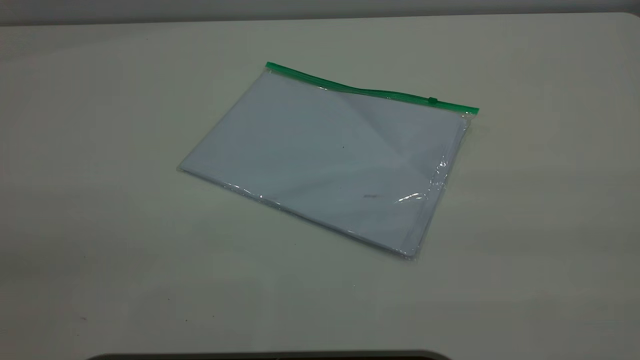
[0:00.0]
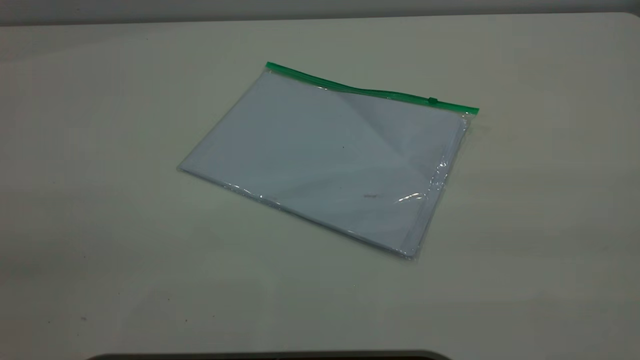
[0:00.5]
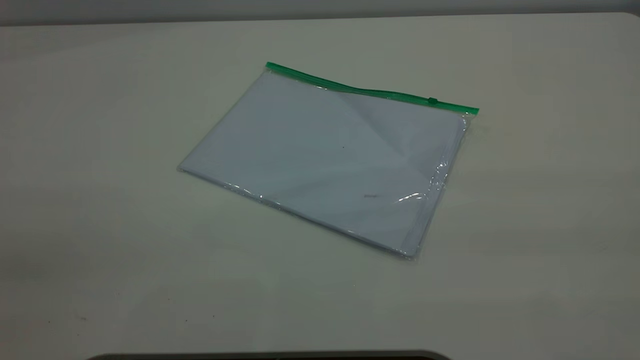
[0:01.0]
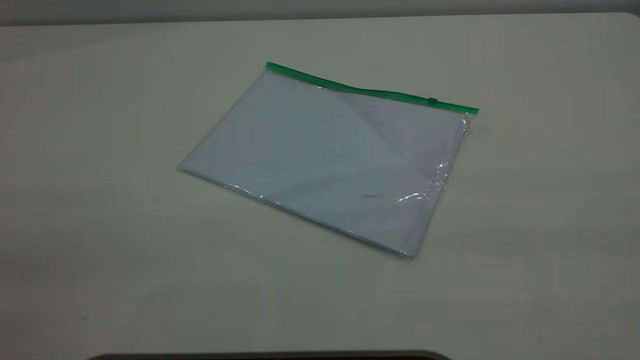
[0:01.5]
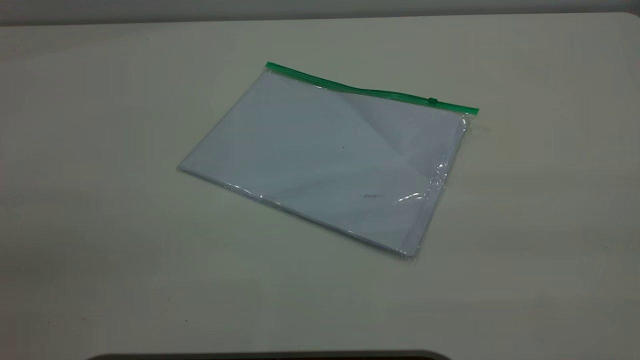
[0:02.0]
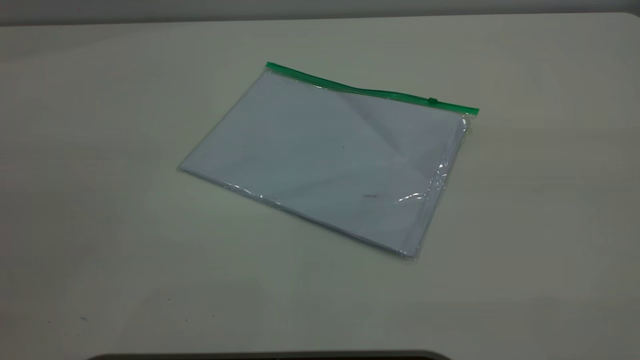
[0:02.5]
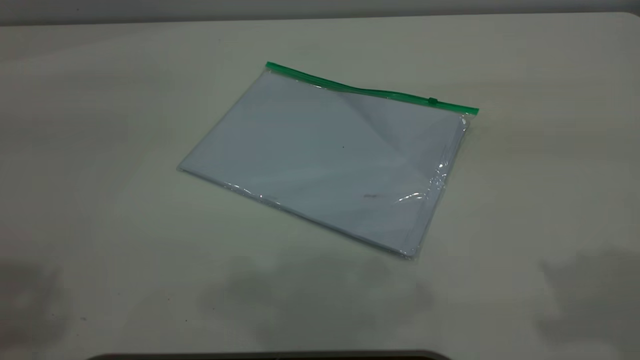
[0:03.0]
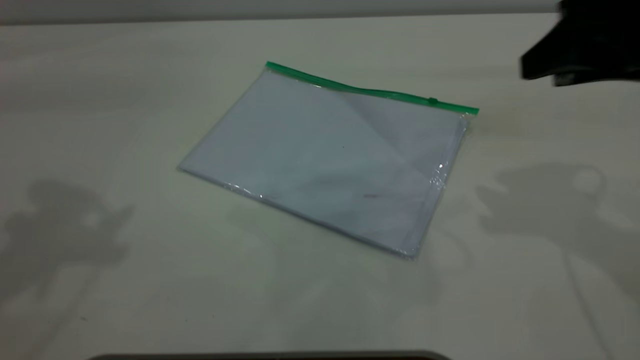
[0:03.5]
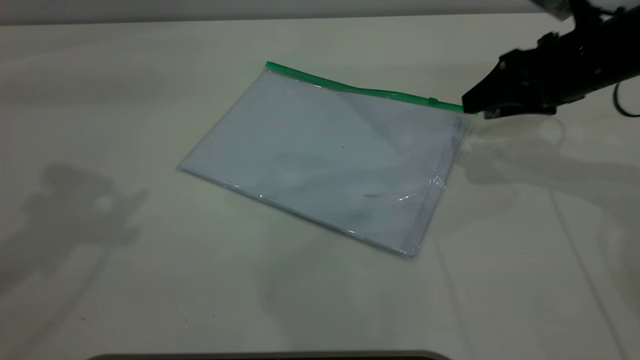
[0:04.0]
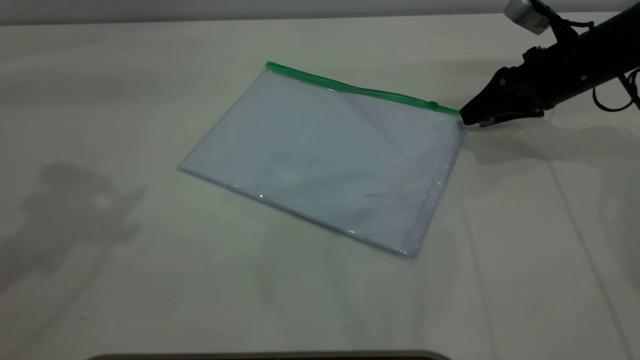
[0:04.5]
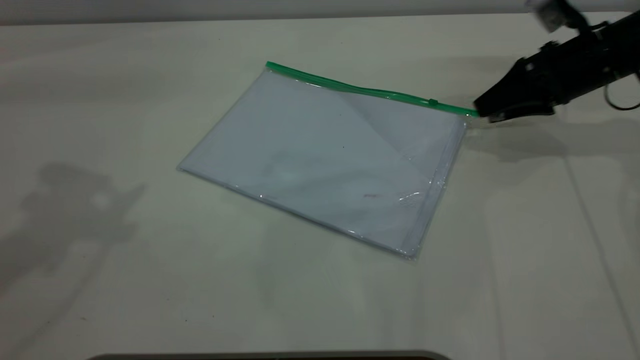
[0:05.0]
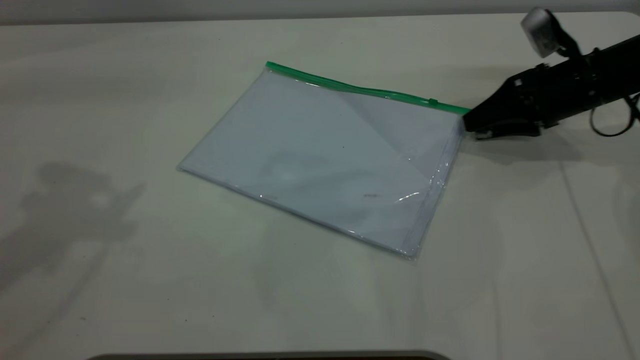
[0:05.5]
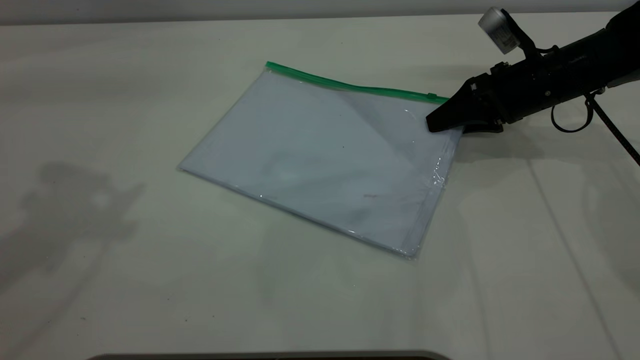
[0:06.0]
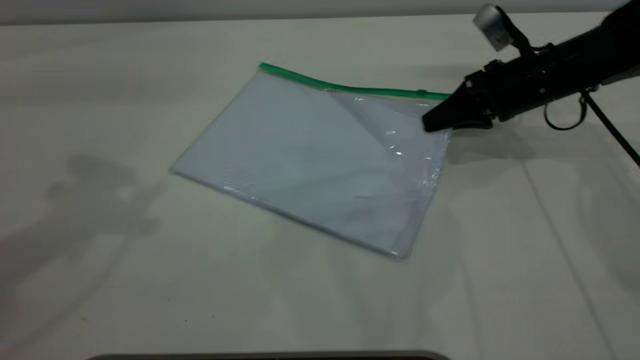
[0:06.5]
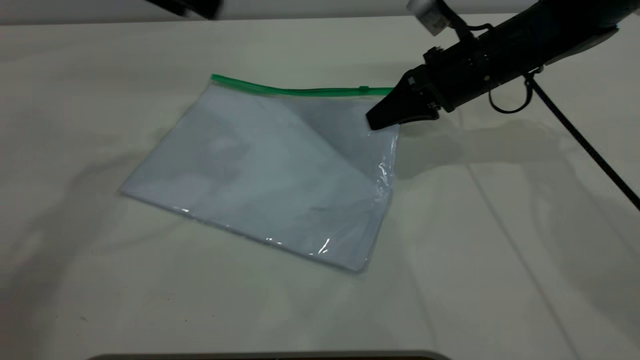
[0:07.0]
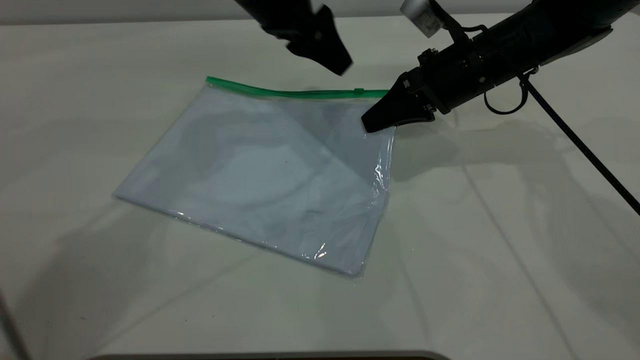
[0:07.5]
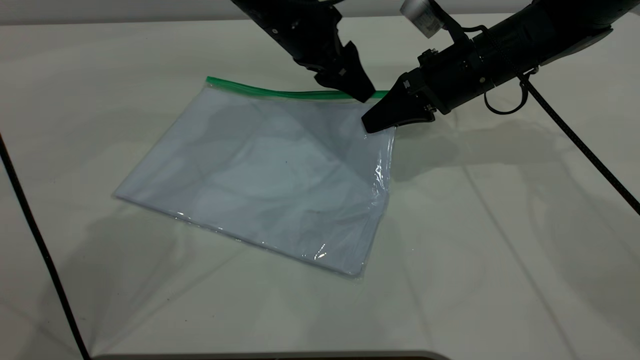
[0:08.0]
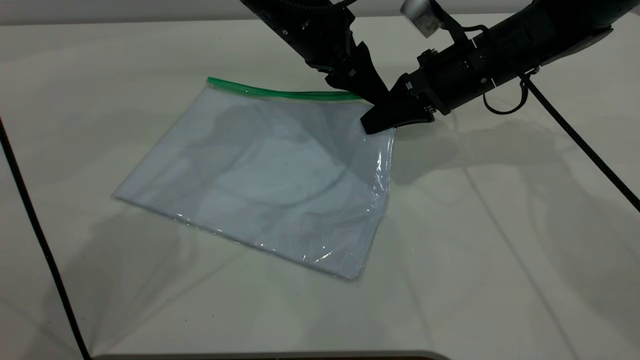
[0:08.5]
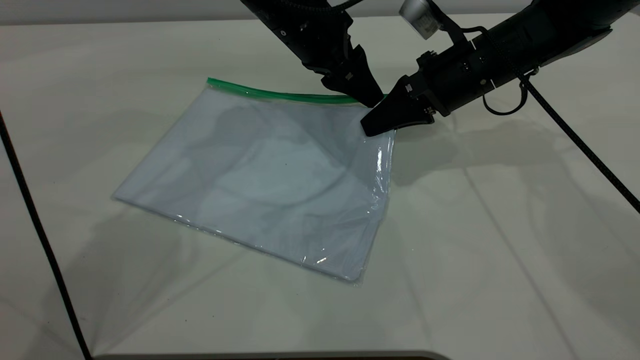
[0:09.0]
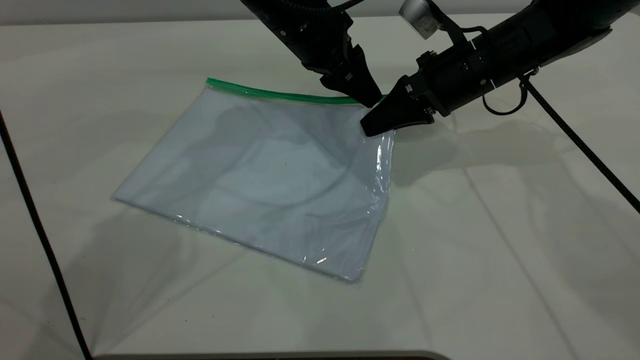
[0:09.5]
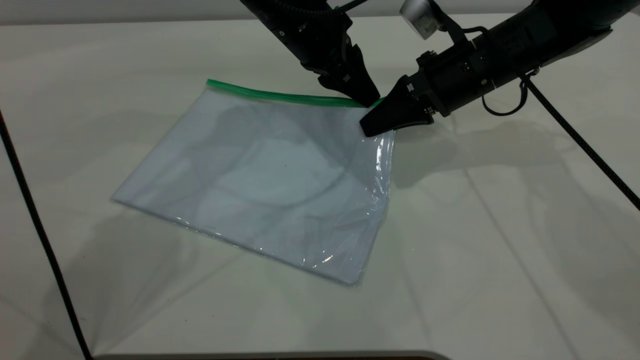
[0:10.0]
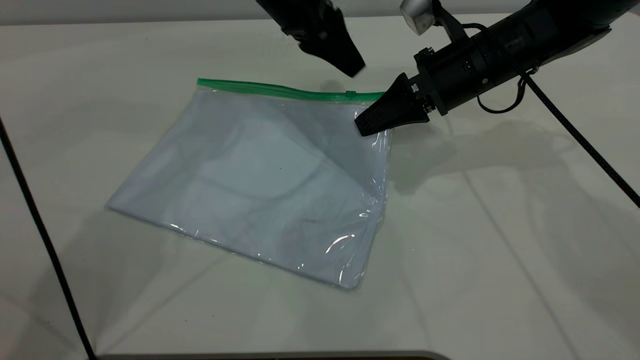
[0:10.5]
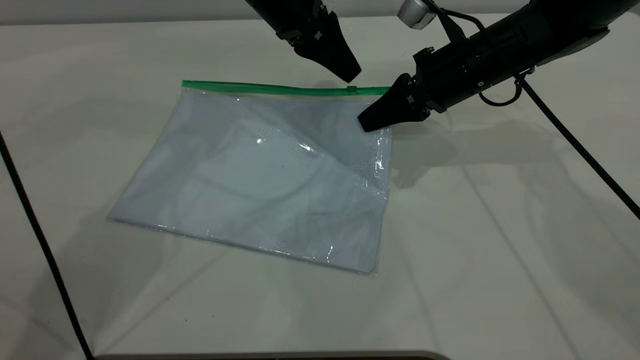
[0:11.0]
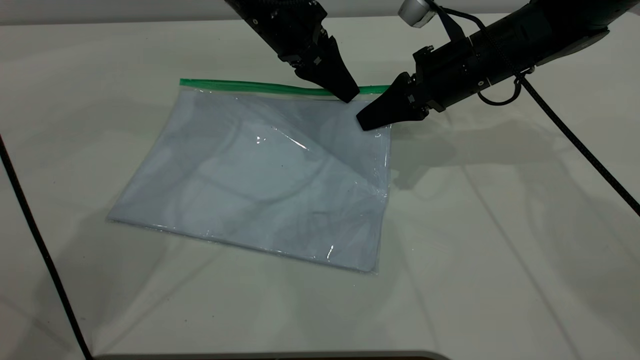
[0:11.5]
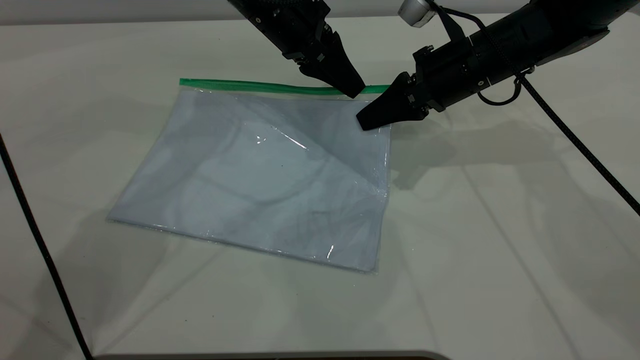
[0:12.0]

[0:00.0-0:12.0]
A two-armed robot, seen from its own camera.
Step, 0:00.0 to 0:07.0: Pick up the transparent plastic bag with the right gripper.
0:00.0 to 0:02.0: Neither gripper changes place.
0:02.0 to 0:04.0: The right gripper heads forward and downward, covering roughly 50 cm, and opens.
0:04.0 to 0:06.0: The right gripper heads downward and forward, covering some 10 cm.
0:06.0 to 0:08.0: The left gripper shifts roughly 35 cm to the right, downward and forward; the right gripper heads to the left, covering roughly 10 cm, and closes up.
0:08.0 to 0:10.0: The left gripper closes up.
0:10.0 to 0:12.0: The grippers stay close to where they were, moving slightly.

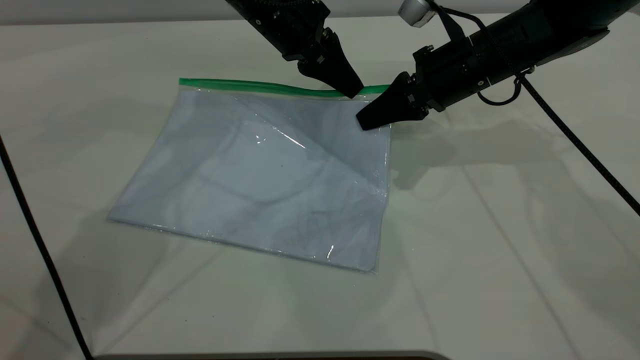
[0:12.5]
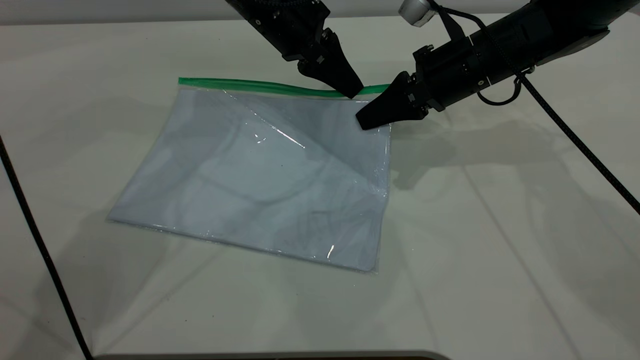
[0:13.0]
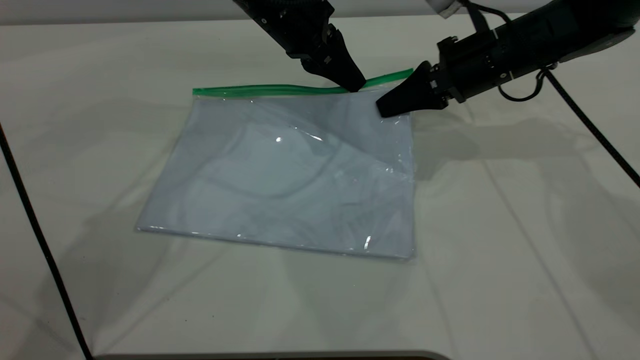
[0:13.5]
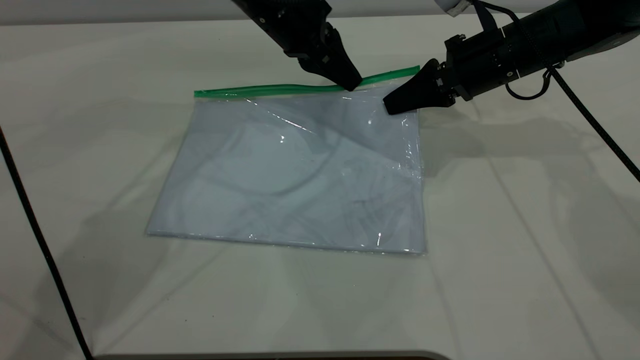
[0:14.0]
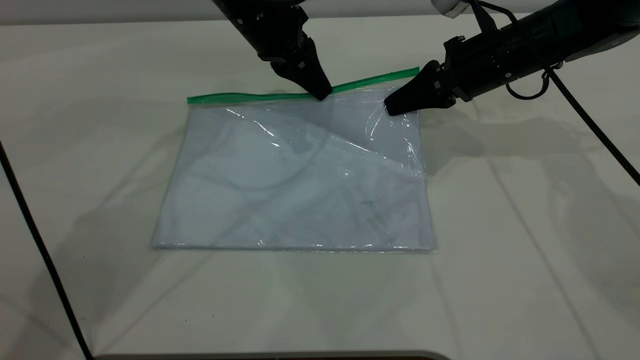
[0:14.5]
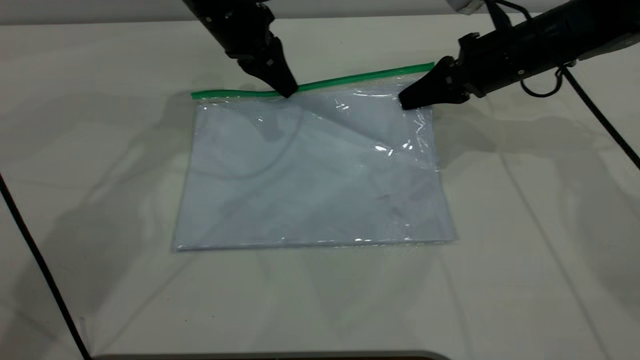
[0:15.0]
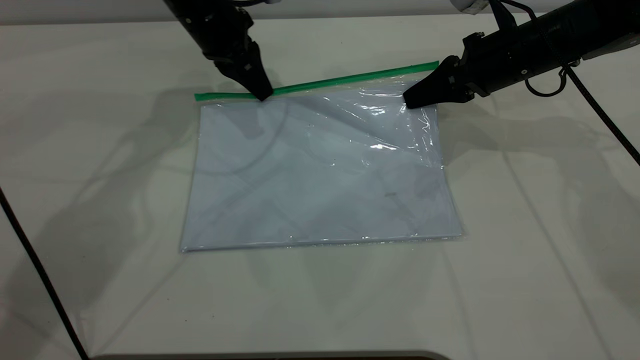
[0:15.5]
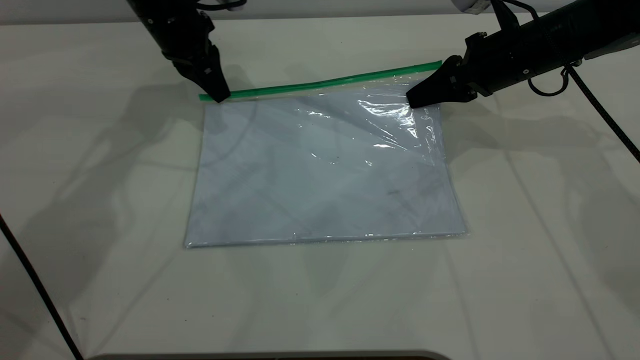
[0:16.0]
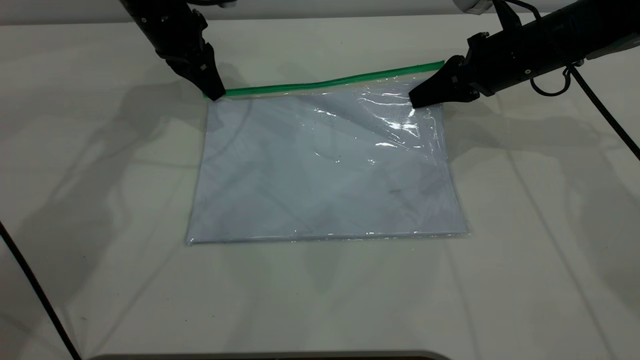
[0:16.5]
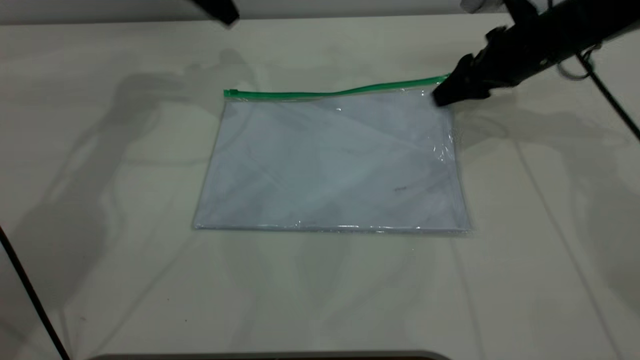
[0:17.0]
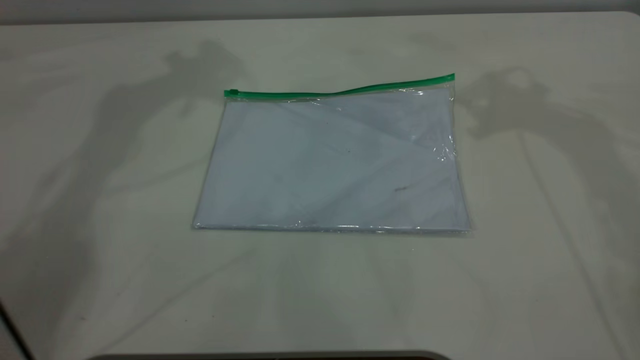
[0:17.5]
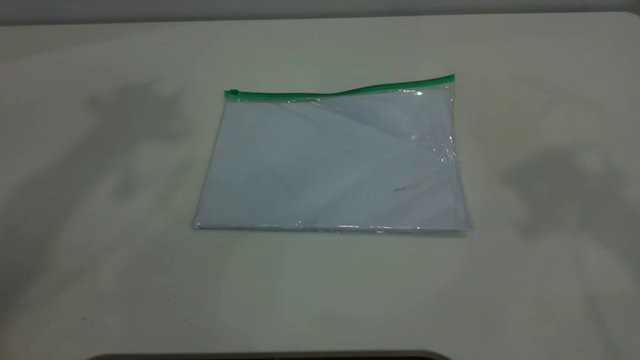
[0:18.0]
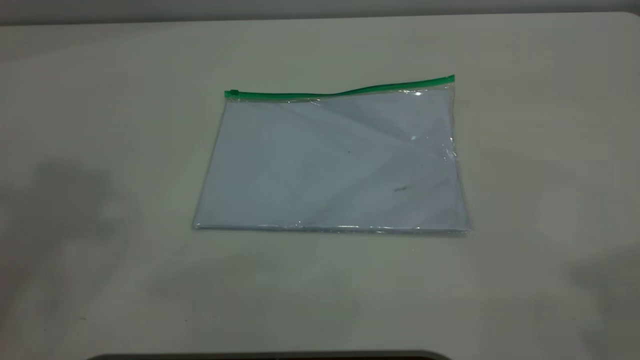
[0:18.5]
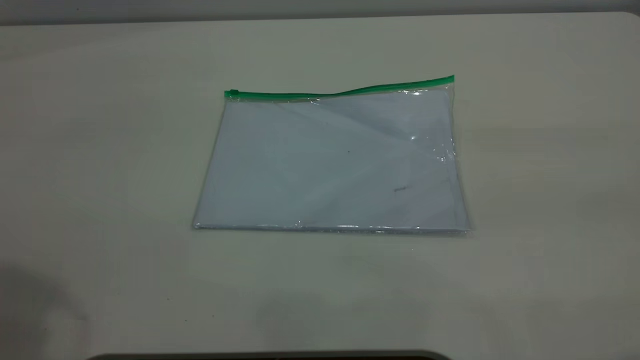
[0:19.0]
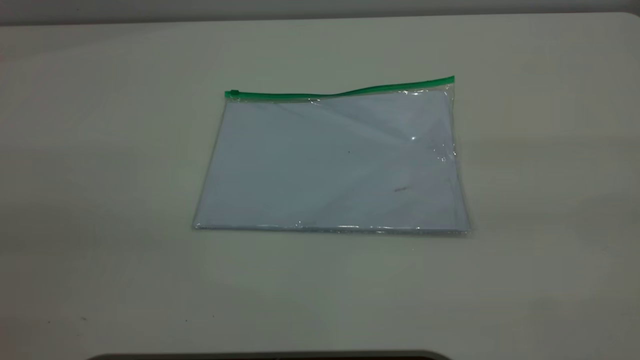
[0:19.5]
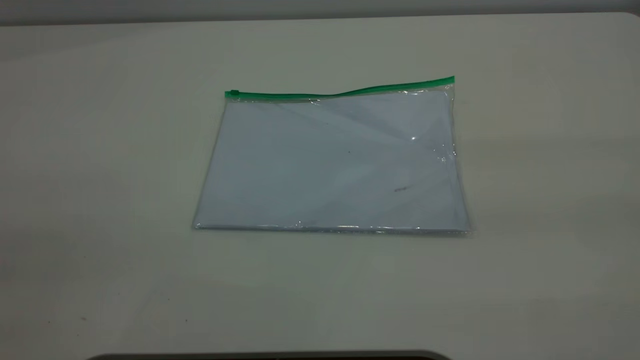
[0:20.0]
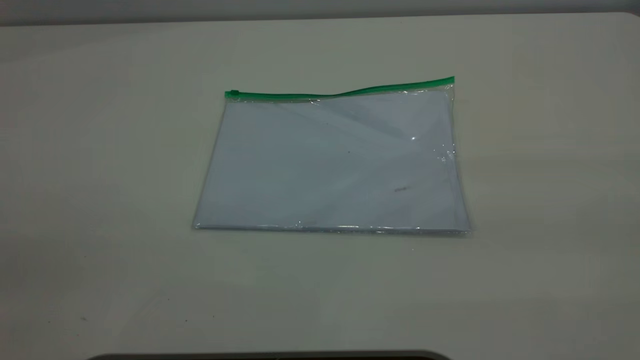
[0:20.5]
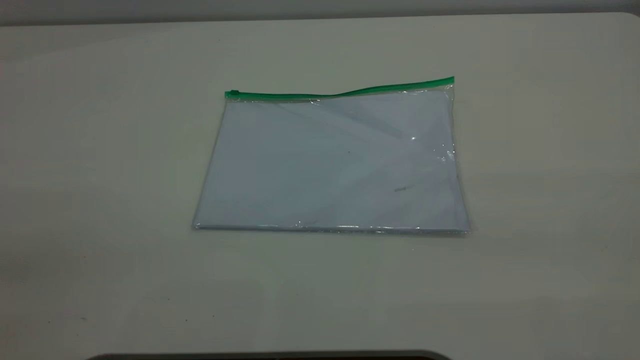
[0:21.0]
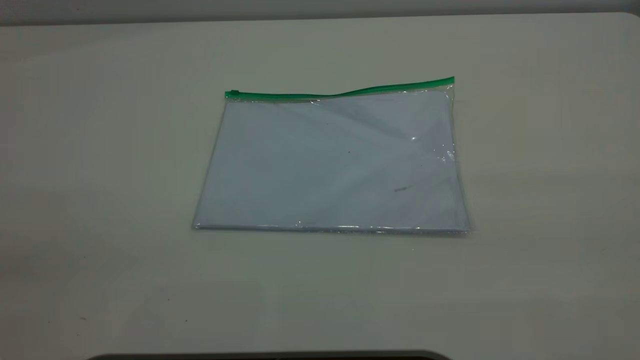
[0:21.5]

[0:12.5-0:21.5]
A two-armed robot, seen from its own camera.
Step, 0:12.5 to 0:16.5: Pulling up the zipper on the transparent plastic bag with the left gripper to close it.
Step, 0:17.0 to 0:18.0: Place the transparent plastic bag.
0:12.5 to 0:14.5: The grippers make only small movements.
0:14.5 to 0:17.0: The right gripper goes roughly 5 cm to the right, and opens its fingers. The left gripper goes some 15 cm to the left and upward, and opens its fingers.
0:17.0 to 0:19.5: The right gripper moves backward and upward, approximately 50 cm, while the left gripper goes roughly 50 cm backward.
